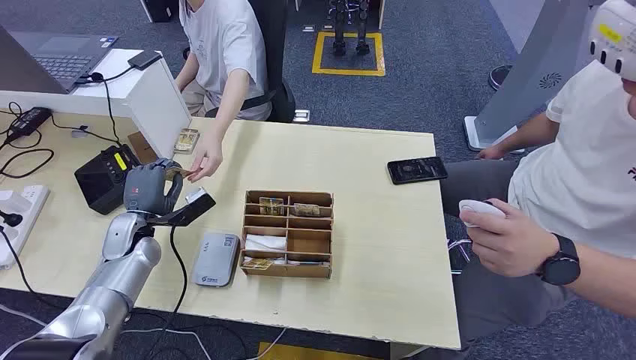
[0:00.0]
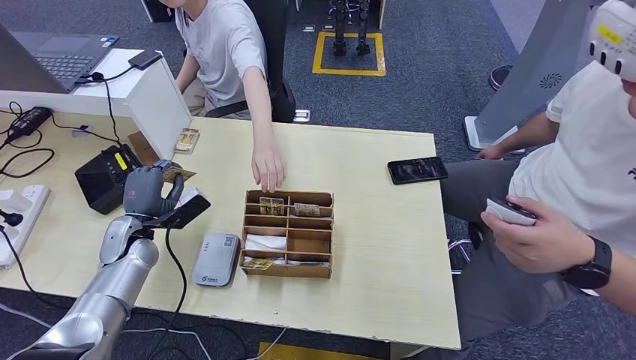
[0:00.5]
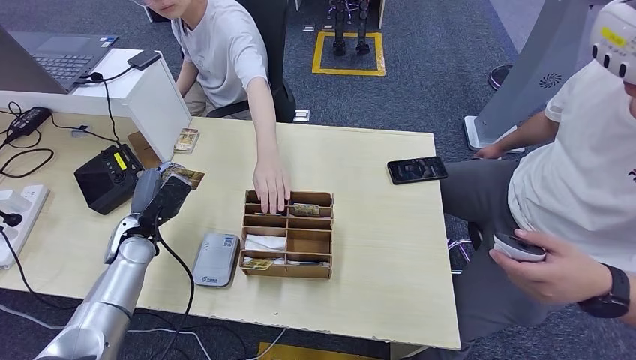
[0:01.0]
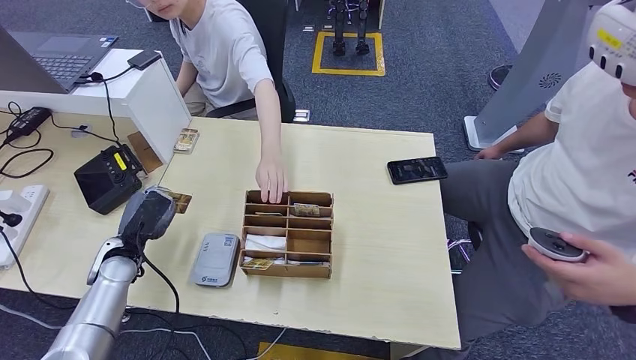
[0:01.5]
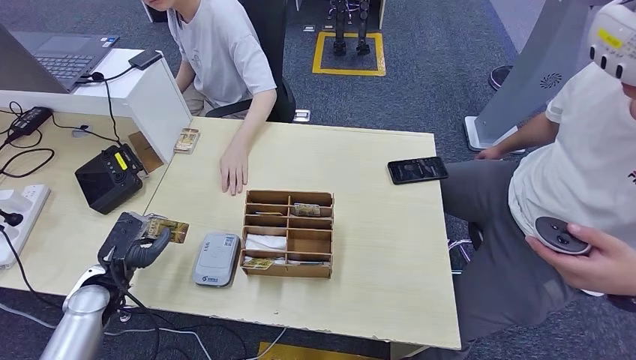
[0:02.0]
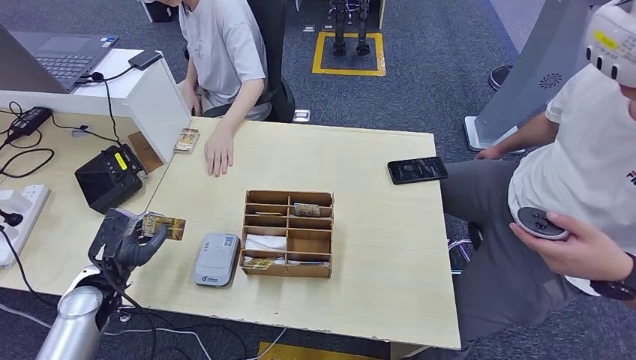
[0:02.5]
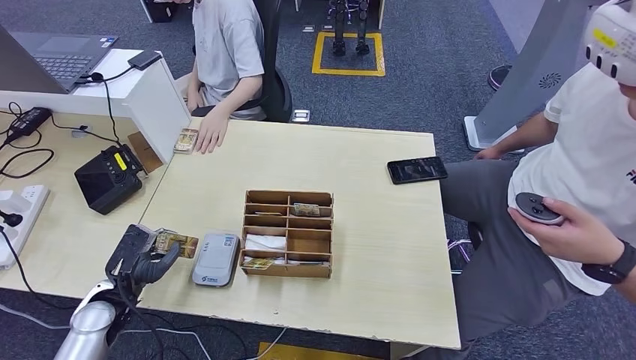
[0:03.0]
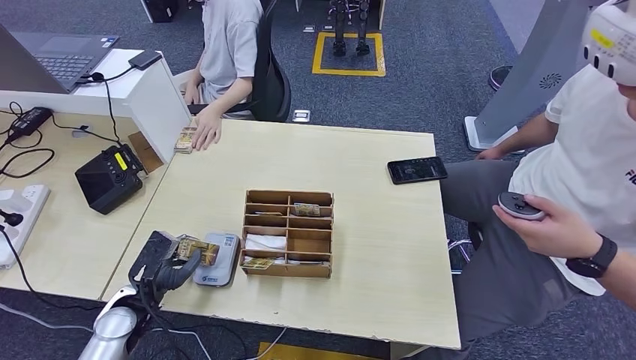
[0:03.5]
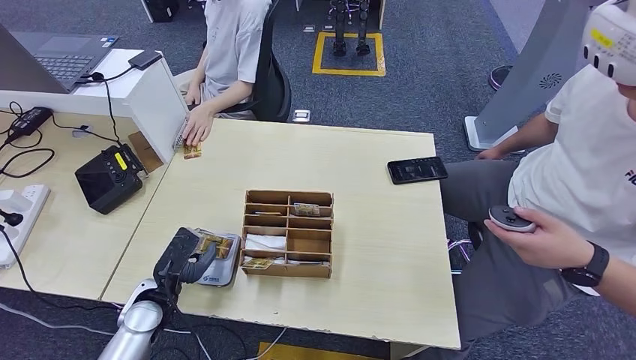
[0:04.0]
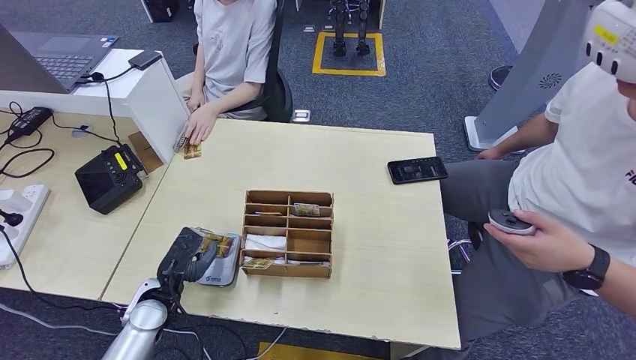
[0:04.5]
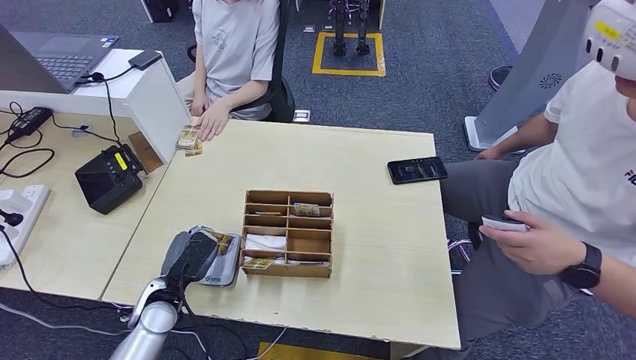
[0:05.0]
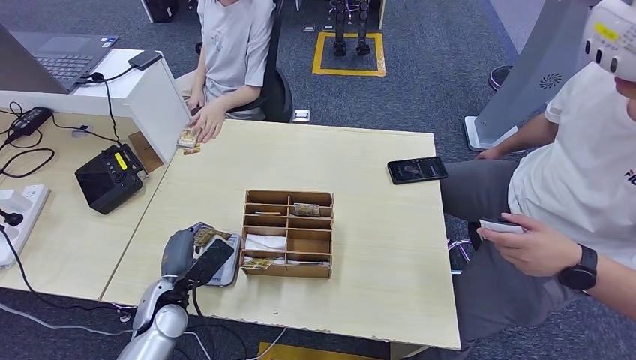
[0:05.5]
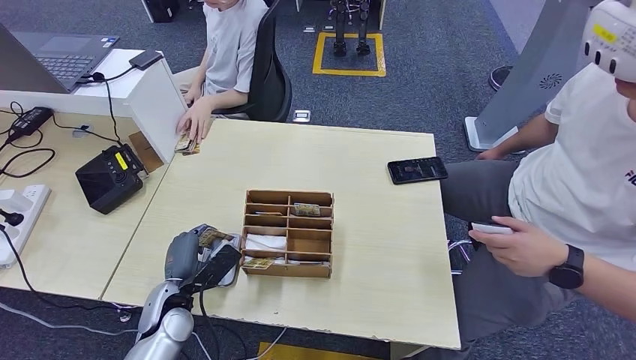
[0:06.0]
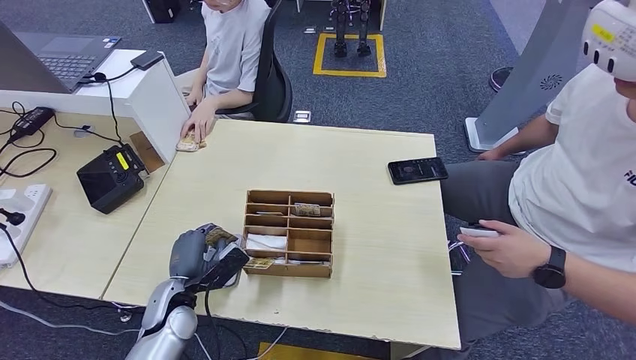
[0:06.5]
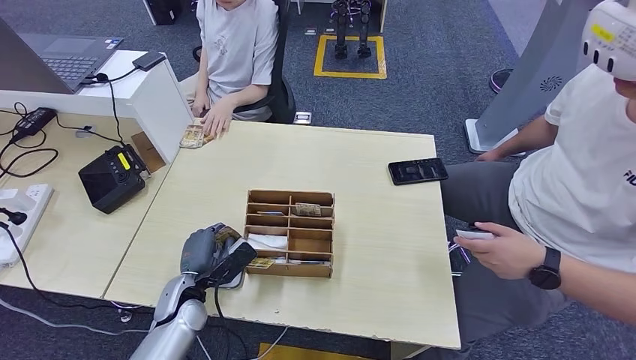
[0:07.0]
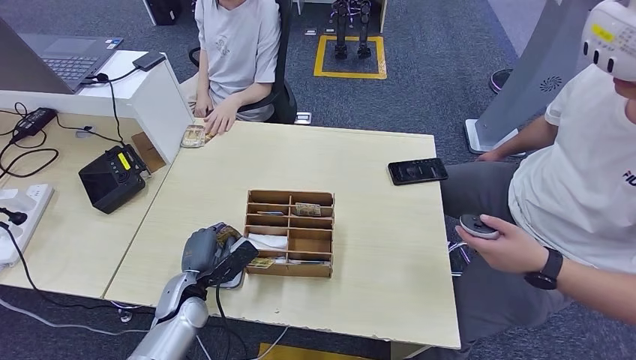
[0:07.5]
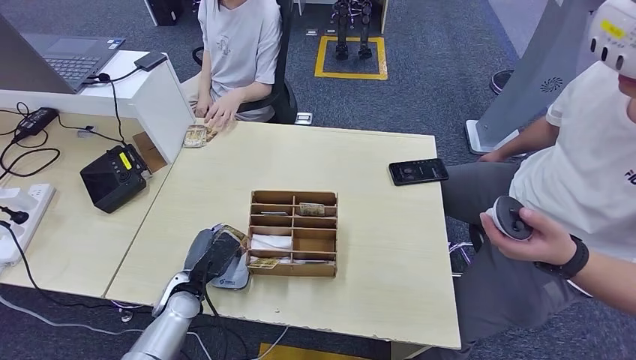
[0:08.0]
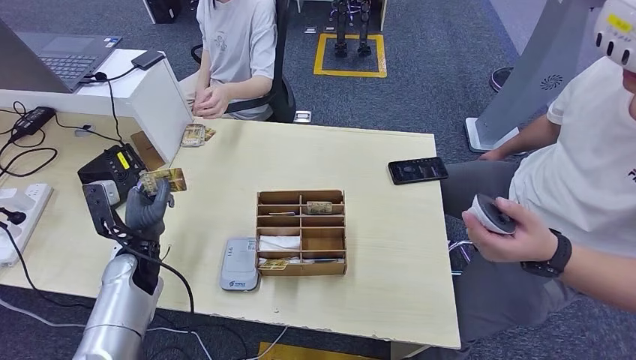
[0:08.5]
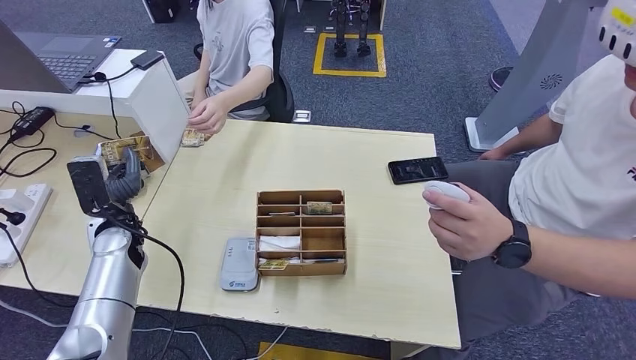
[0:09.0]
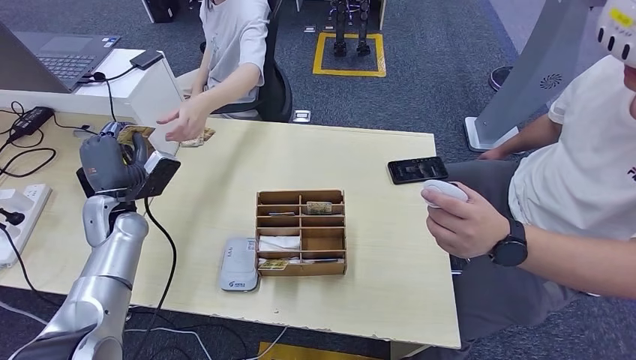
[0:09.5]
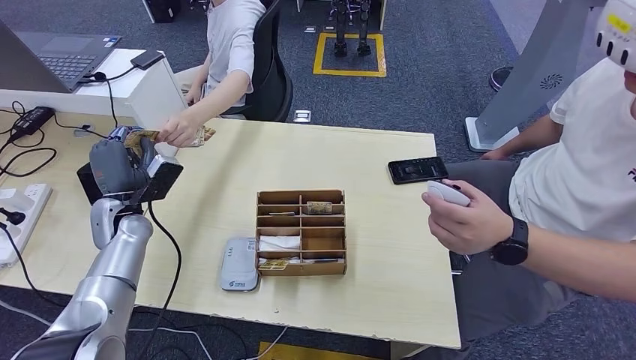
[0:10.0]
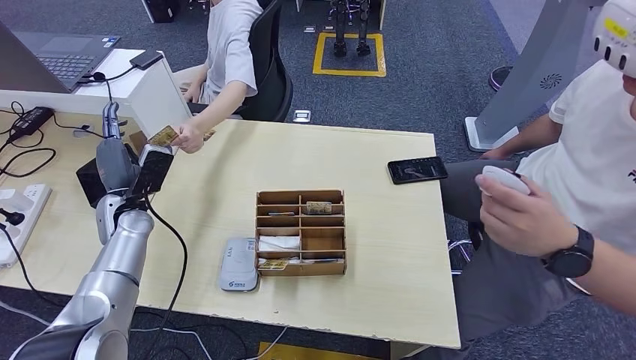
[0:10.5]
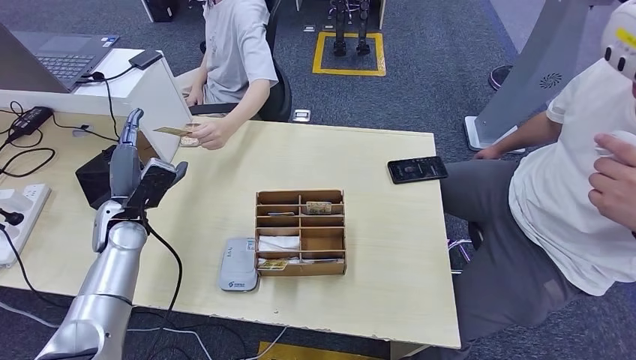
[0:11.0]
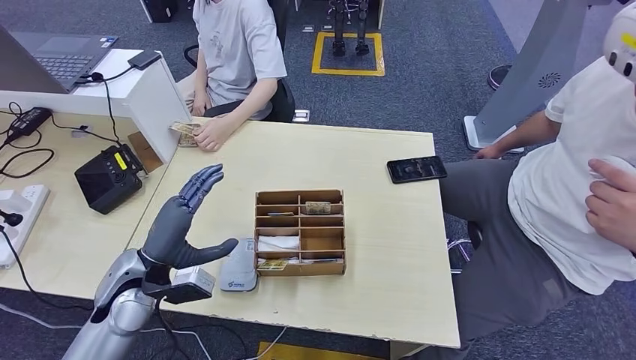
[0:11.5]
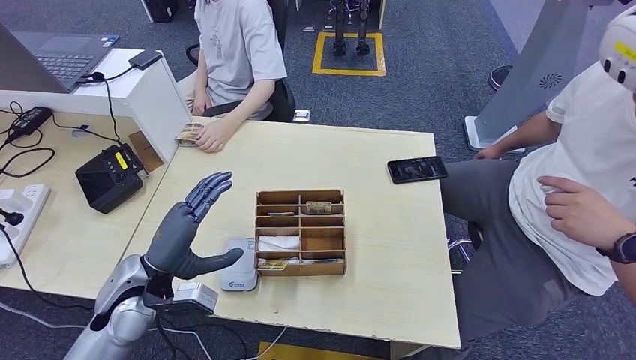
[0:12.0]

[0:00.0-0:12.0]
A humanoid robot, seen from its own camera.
Step, 0:00.0 to 0:00.5: Take the ID card from the person's hand.
Step, 0:01.0 to 0:08.5: Place the ID card on the card reader.
Step, 0:09.0 to 0:10.5: Hand the ID card to the person.
0:02.0 to 0:04.0: The left hand heads to the right, covering roughly 10 cm.
0:06.0 to 0:08.0: The hands make only small movements.

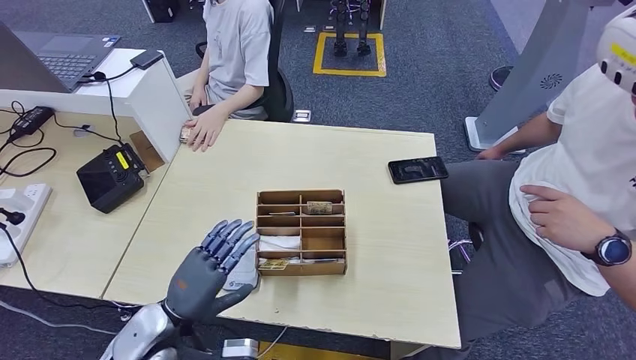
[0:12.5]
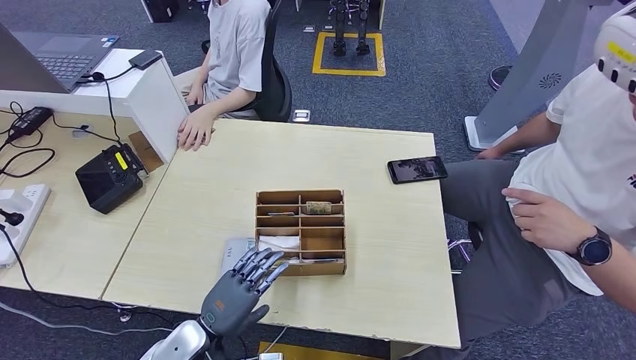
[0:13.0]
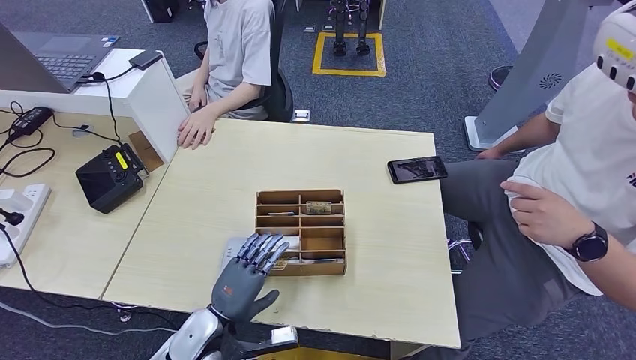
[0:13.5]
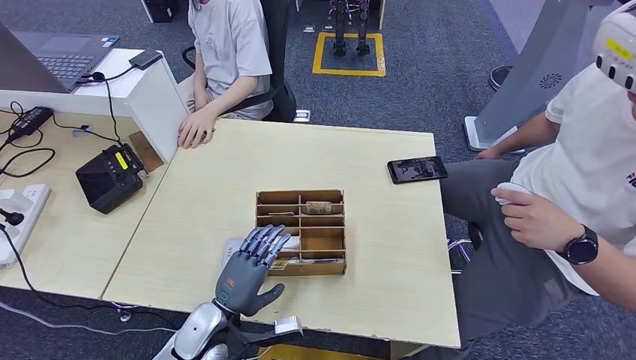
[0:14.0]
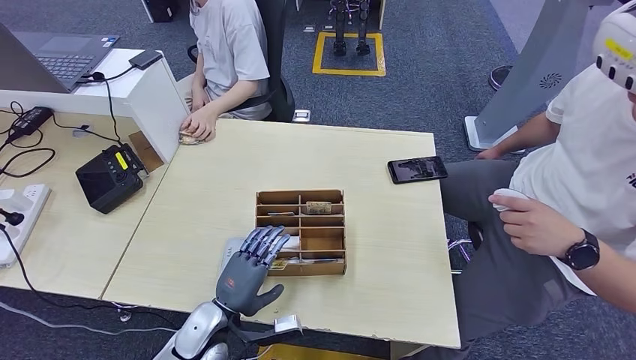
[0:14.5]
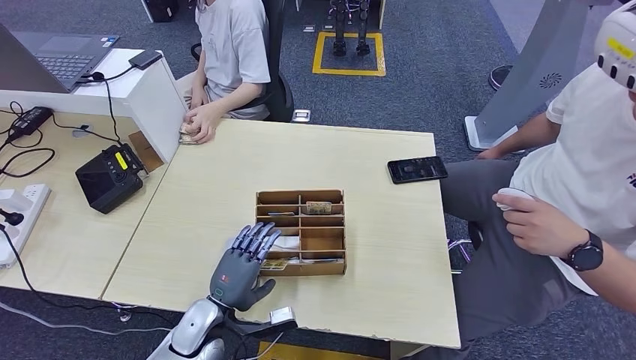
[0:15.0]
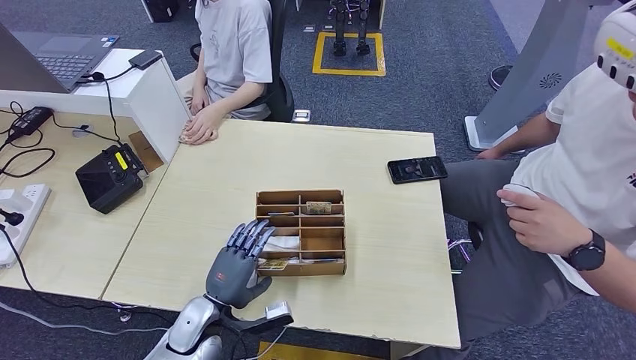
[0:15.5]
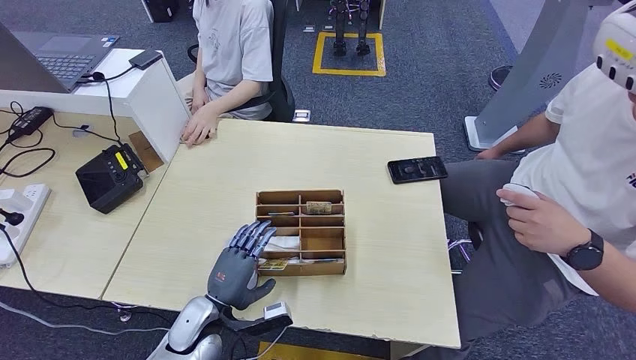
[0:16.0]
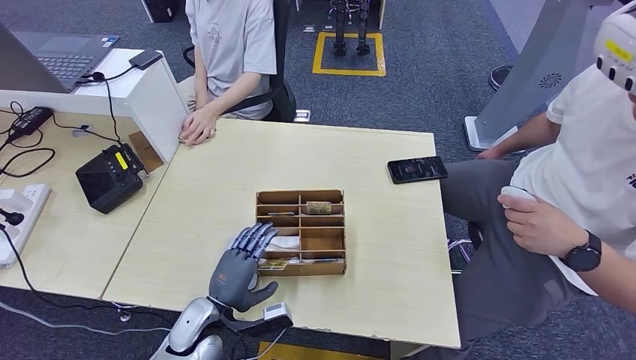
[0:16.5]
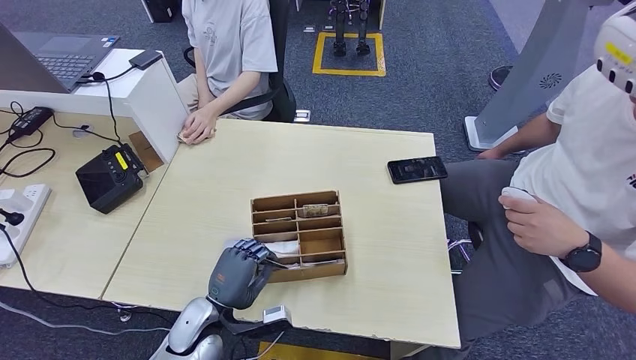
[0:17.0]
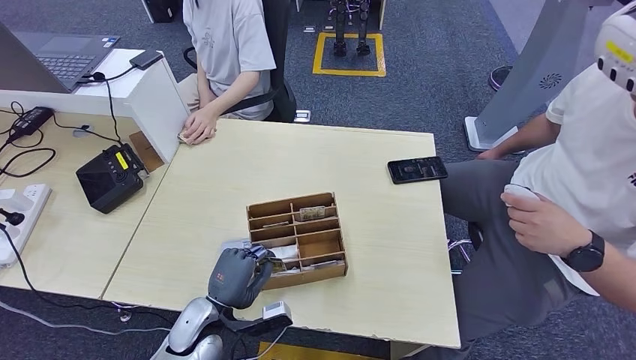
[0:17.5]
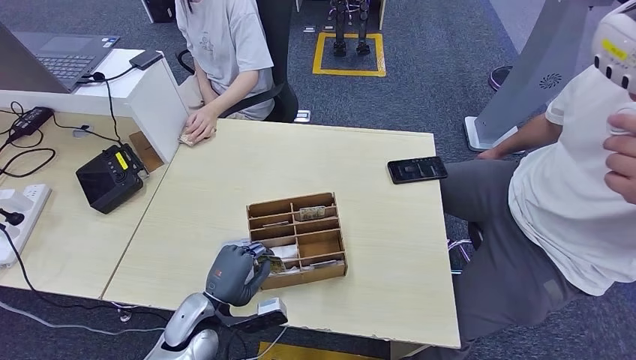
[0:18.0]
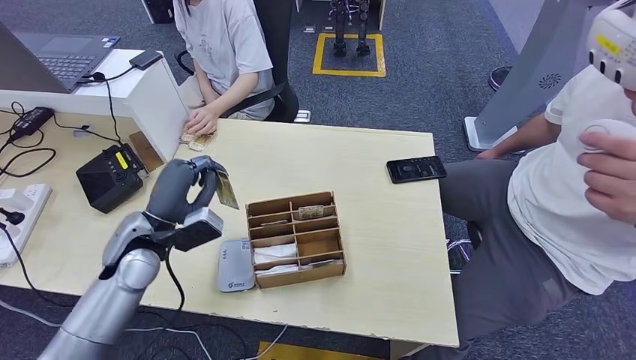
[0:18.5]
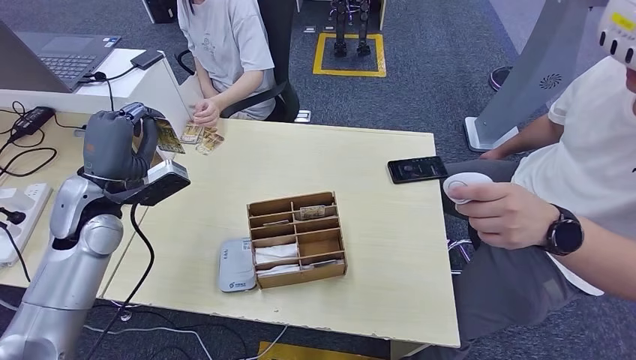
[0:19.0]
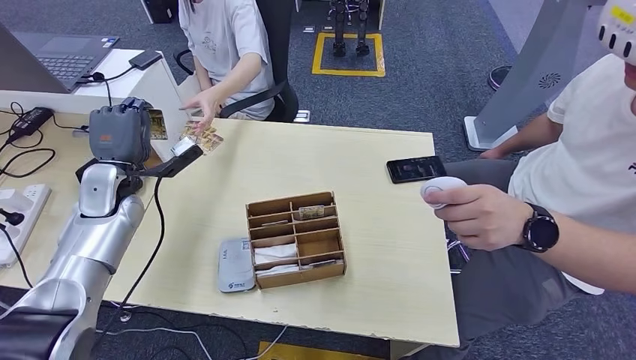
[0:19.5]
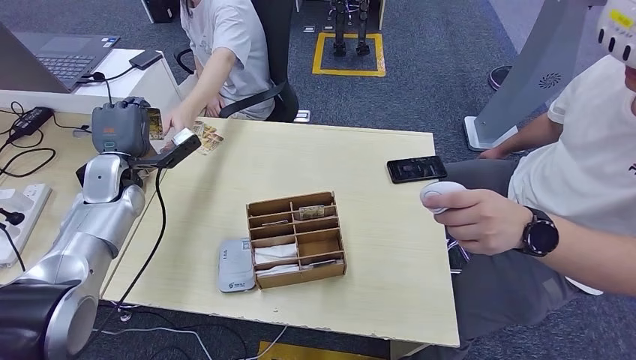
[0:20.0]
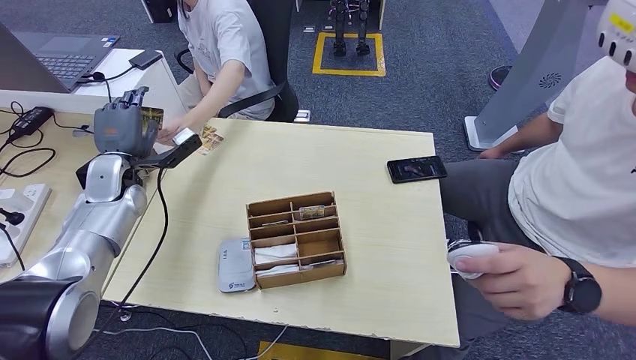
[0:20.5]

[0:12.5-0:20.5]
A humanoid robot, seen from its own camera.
Step, 0:17.0 to 0:18.0: Pick up the room key from the key card box.
Step, 0:19.0 to 0:20.5: Hand the room key to the person.
0:12.5 to 0:14.5: The left hand shifts approximately 10 cm downward and to the right.
0:14.5 to 0:16.5: The hands move only a little.
